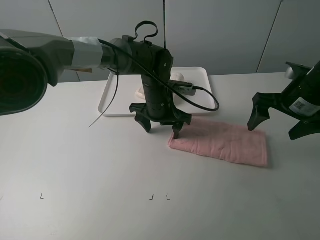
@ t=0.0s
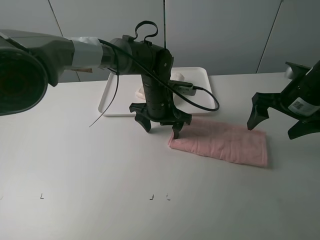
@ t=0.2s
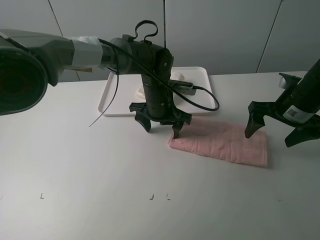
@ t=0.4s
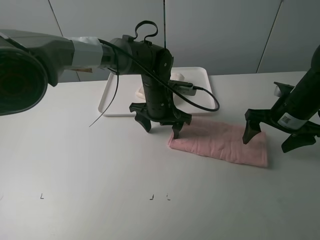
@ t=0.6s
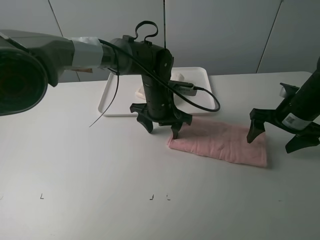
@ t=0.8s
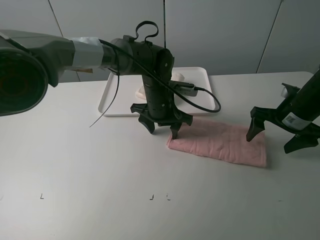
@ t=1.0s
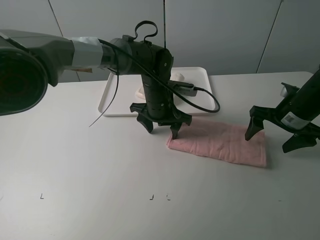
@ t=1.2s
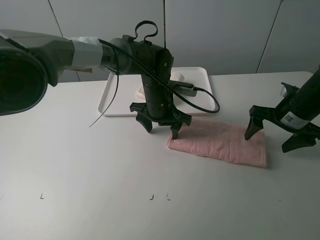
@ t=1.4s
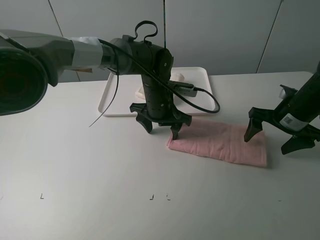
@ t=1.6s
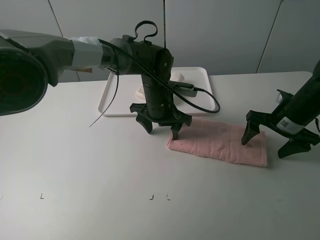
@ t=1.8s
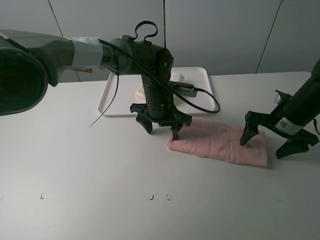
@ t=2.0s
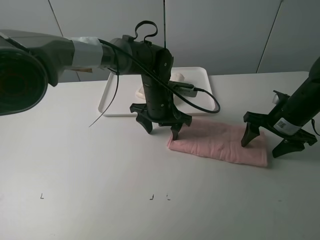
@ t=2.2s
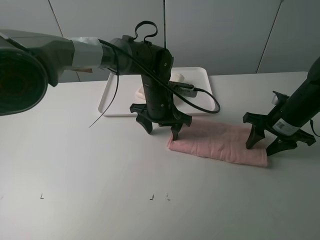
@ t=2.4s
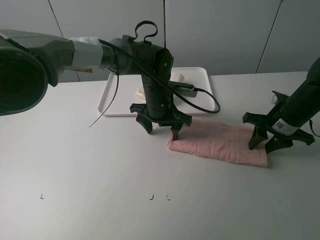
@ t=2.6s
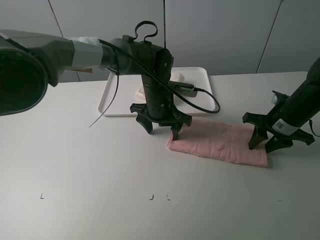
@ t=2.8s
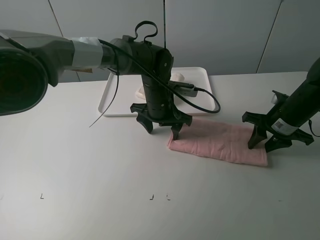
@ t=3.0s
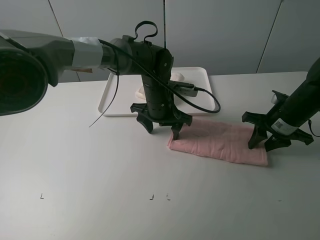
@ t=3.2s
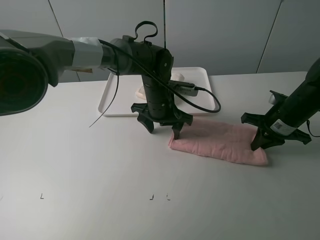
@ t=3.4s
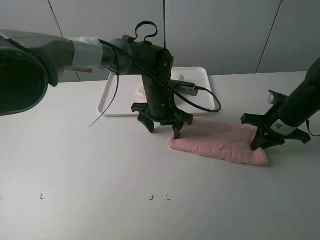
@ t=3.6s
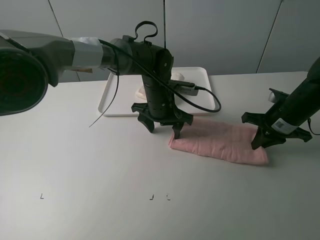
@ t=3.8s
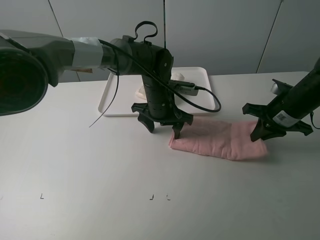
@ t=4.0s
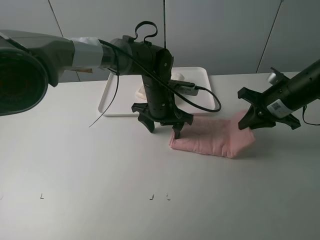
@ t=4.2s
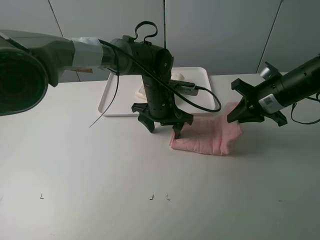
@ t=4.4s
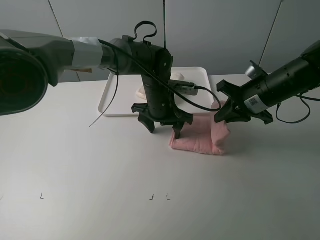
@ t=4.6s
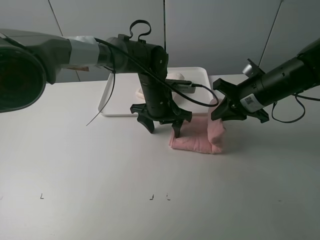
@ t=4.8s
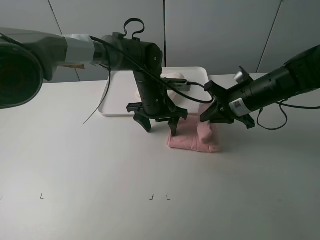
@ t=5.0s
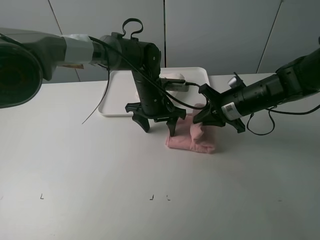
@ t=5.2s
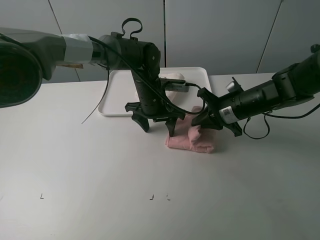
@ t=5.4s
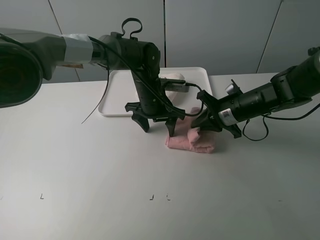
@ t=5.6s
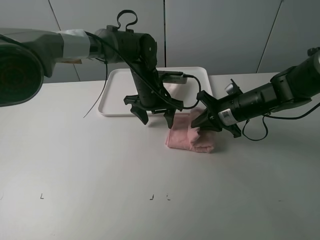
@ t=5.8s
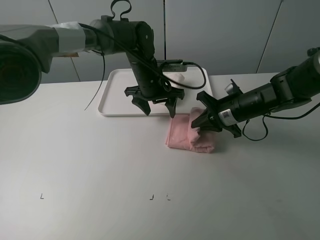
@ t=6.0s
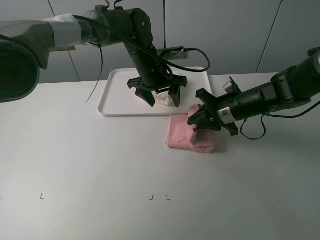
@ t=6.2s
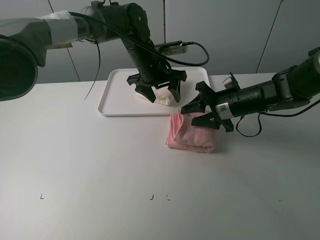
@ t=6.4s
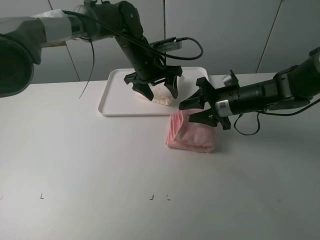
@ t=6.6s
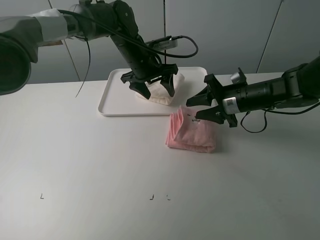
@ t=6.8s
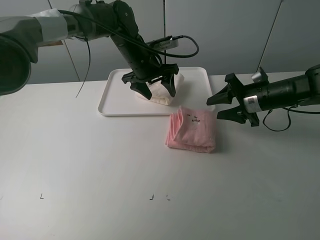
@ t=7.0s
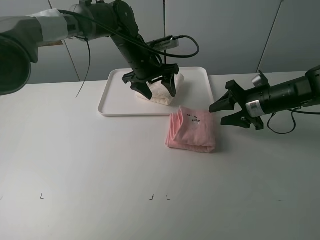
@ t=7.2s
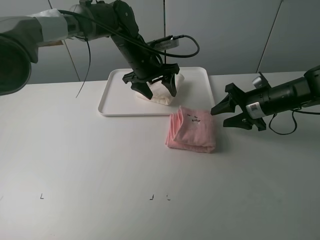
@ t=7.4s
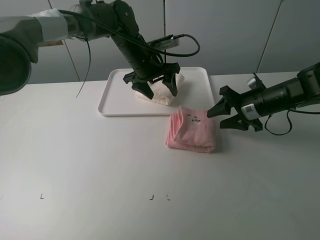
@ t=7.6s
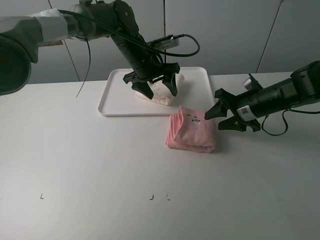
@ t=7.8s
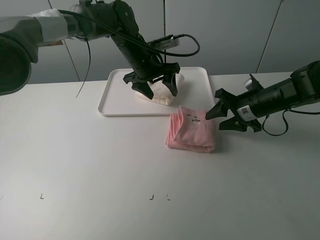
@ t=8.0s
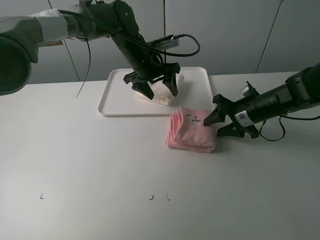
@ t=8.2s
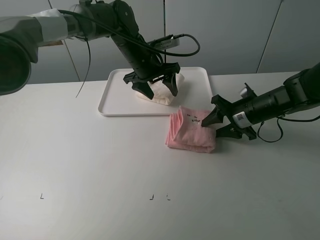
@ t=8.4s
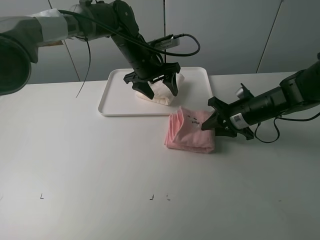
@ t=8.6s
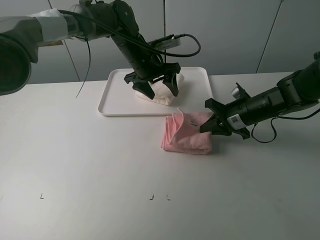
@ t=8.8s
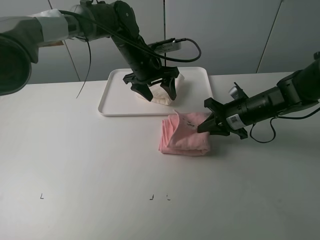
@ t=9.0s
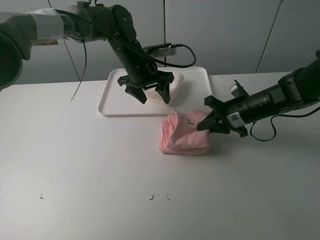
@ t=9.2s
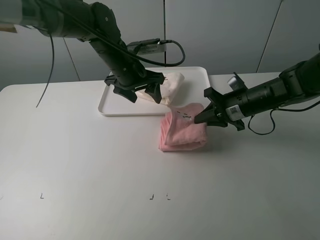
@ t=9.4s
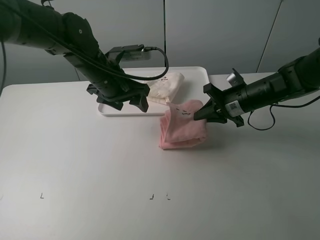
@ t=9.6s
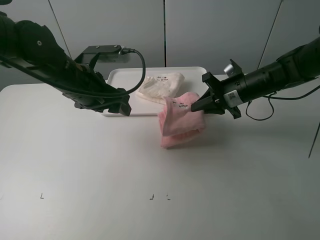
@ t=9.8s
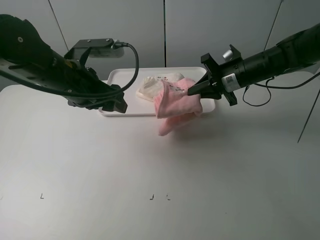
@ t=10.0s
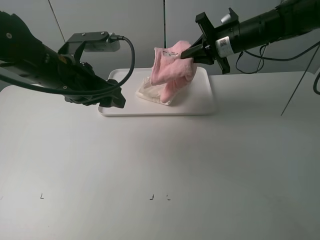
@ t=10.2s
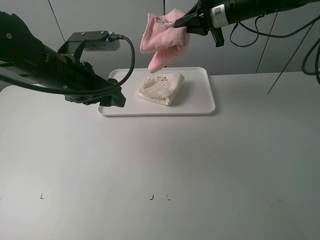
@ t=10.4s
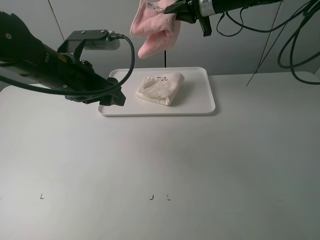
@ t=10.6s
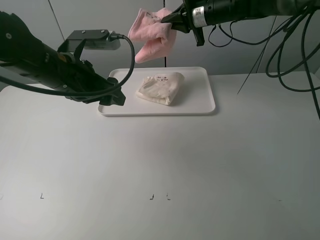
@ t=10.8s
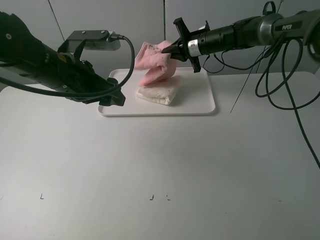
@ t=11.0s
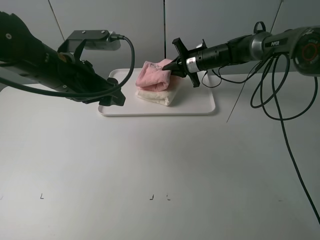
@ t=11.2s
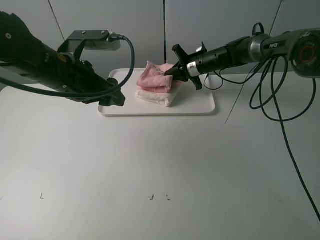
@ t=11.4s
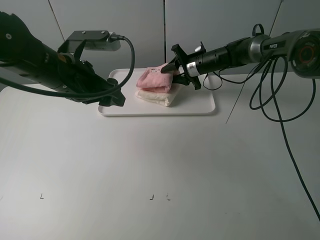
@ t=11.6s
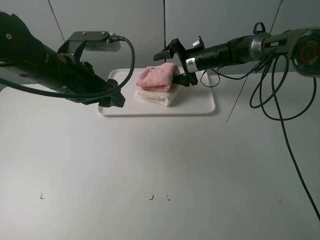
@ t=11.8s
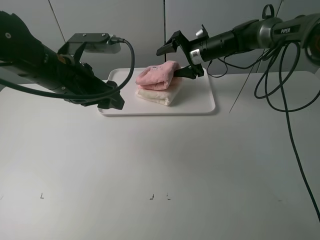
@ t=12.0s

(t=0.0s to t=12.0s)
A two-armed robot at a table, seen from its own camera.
Task of the whole recording: fold one of the towels by two grippers and place it on the tray,then fold another towel by two grippers and place it on the folded towel.
Step, t=0.2s - t=3.4s: Grasp the pink towel with the right gripper.
Step, t=3.6s - t=6.6s: Fold the pink towel from right to left with right gripper.
Step, t=6.8s - t=8.8s: Grasp the pink towel with the right gripper.
Step, t=9.0s - t=11.8s: Place the pink towel on the white towel with the right gripper.
t=0.0s - t=1.6s: The right gripper heads downward, covering roughly 5 cm.
t=1.6s - t=3.0s: The right gripper closes its fingers.
t=3.0s - t=4.4s: The right gripper heads upward, covering roughly 5 cm, and closes its fingers.
t=4.4s - t=6.0s: The right gripper travels downward and to the left by approximately 10 cm. Meanwhile the left gripper ends up roughly 5 cm from where it was.
t=6.0s - t=7.6s: The right gripper changes place by roughly 5 cm, and opens its fingers.
t=7.6s - t=9.0s: The right gripper closes.
t=9.0s - t=10.4s: The right gripper travels upward and forward by about 20 cm. Meanwhile the left gripper goes some 20 cm backward and to the left.
t=10.4s - t=12.0s: The right gripper heads downward and forward, covering approximately 15 cm, and opens its fingers.

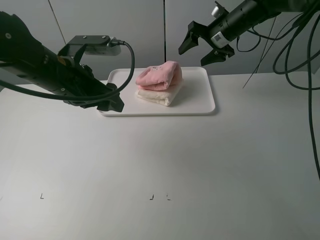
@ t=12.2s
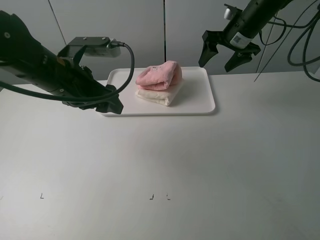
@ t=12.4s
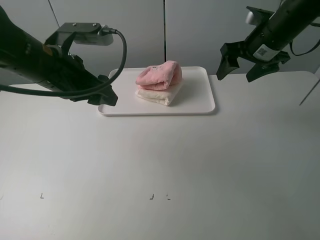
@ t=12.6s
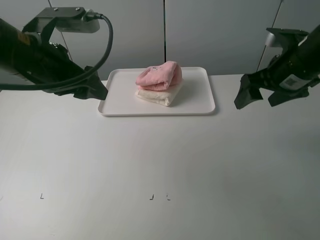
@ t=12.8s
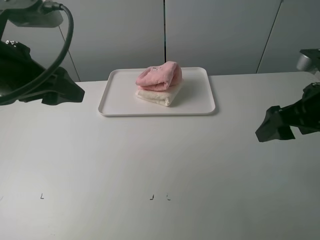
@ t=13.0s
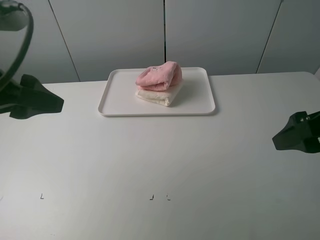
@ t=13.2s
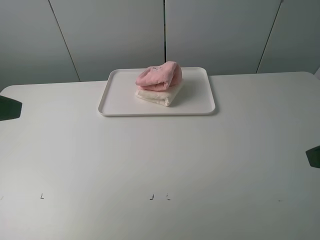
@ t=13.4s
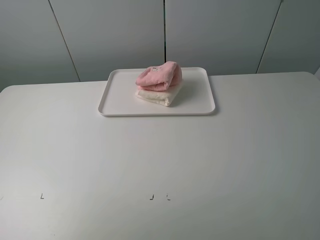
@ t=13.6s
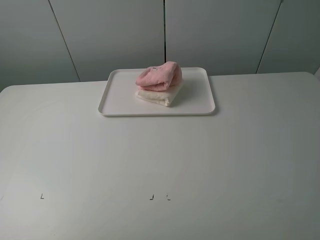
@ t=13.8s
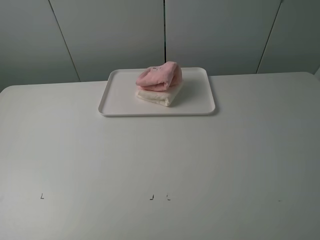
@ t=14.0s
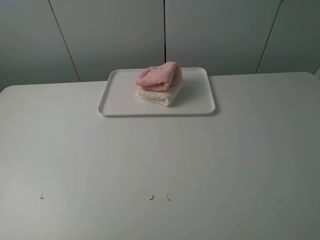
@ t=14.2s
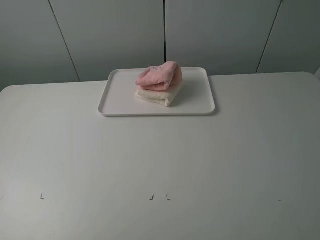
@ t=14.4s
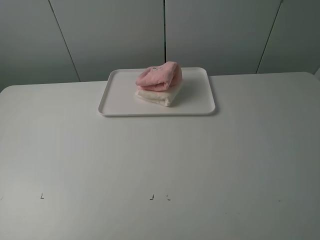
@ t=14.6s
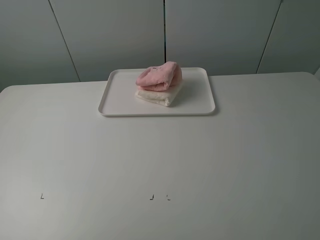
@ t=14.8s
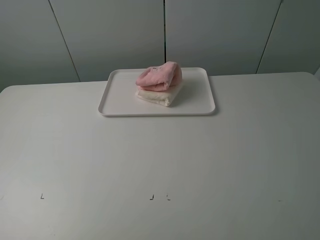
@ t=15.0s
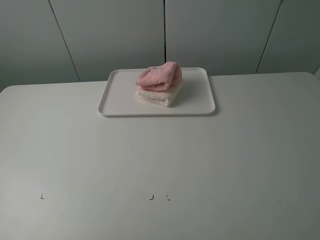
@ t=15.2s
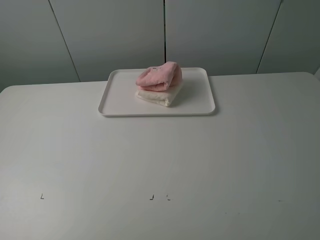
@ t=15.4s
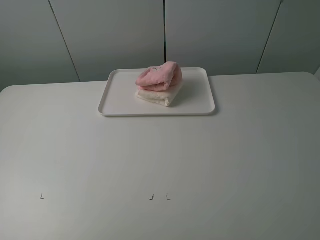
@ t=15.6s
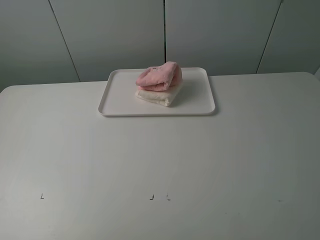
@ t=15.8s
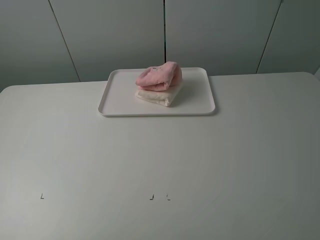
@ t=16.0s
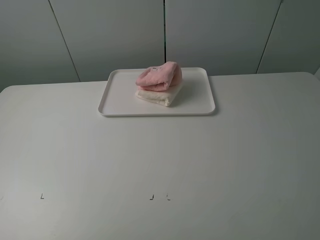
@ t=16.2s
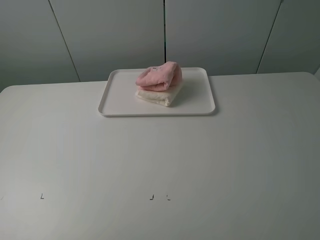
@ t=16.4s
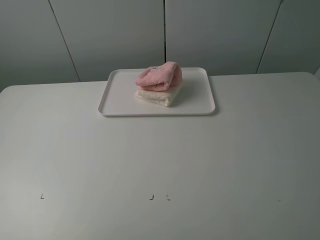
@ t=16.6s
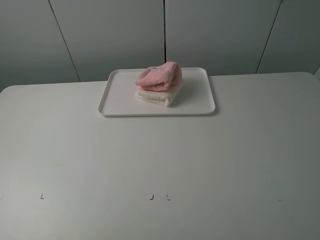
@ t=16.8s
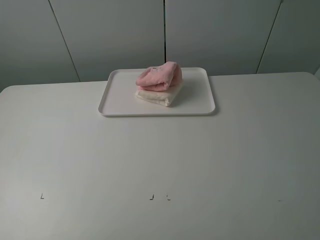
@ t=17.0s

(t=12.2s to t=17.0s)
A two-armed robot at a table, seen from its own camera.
Task of the whole recording: fold one of the towels by two grippers and place it on the tray,then fold another towel by two grippers and place it on the folded towel.
t=12.2s - t=13.8s: The right gripper goes some 50 cm backward, while the left gripper shifts about 30 cm backward and to the left.
